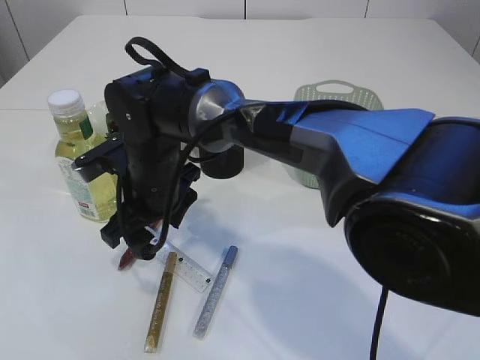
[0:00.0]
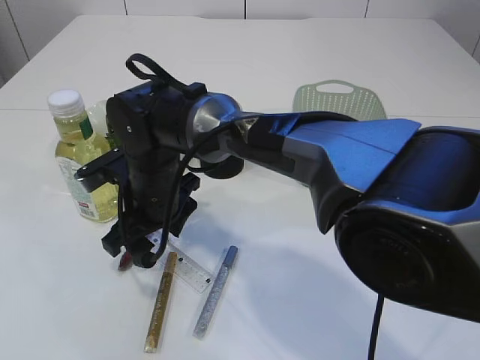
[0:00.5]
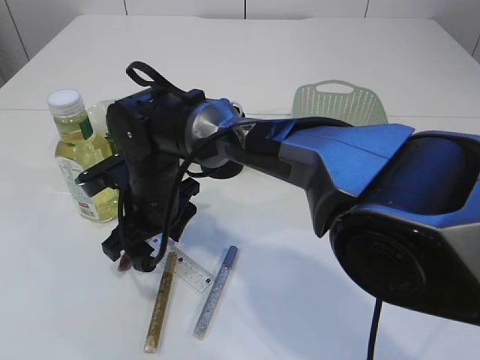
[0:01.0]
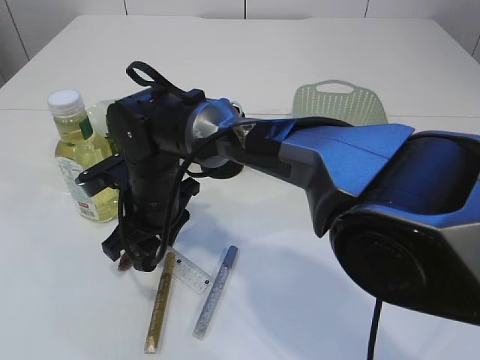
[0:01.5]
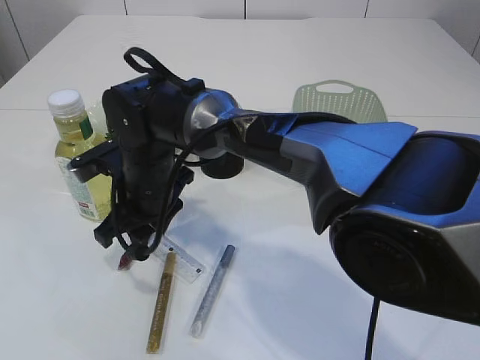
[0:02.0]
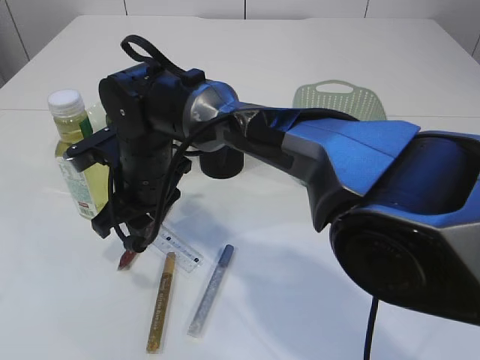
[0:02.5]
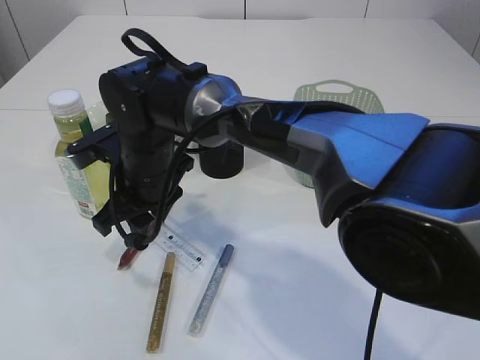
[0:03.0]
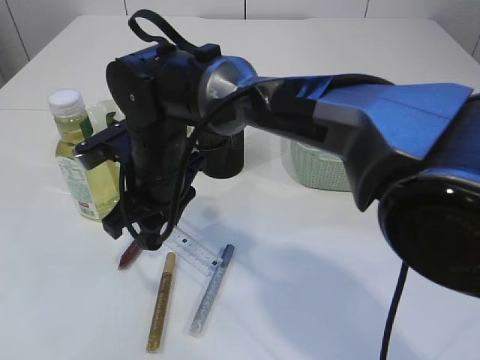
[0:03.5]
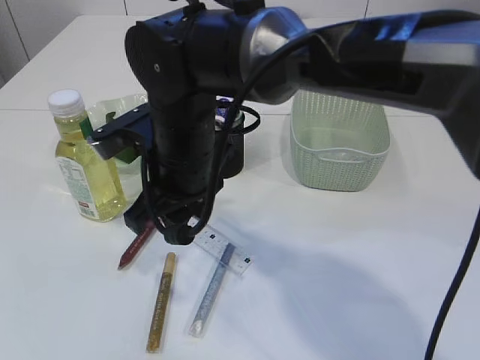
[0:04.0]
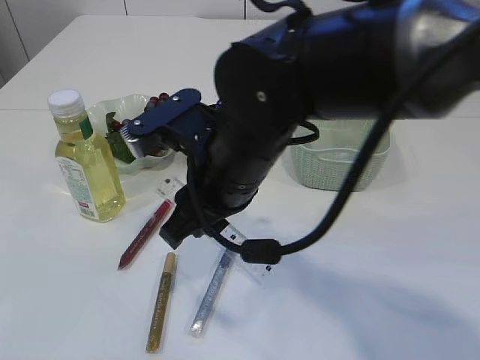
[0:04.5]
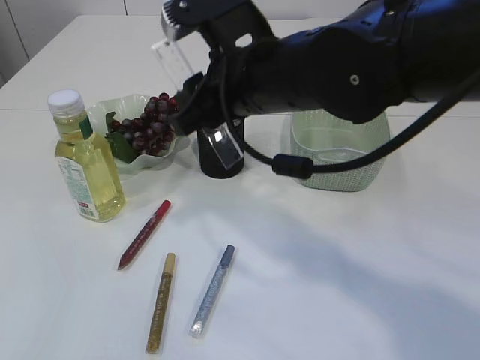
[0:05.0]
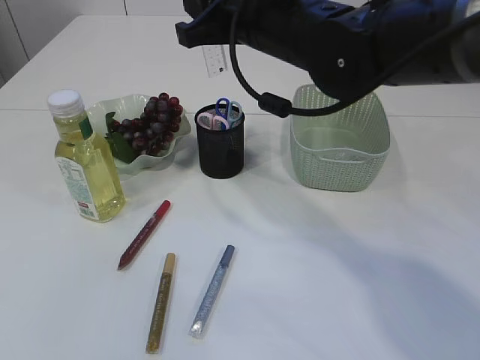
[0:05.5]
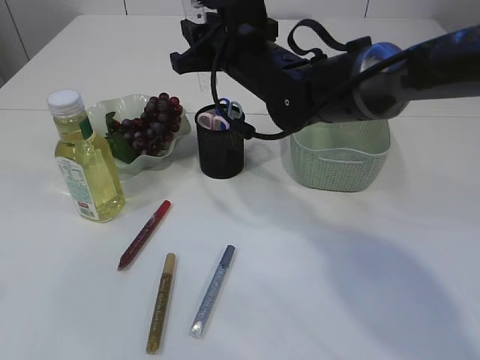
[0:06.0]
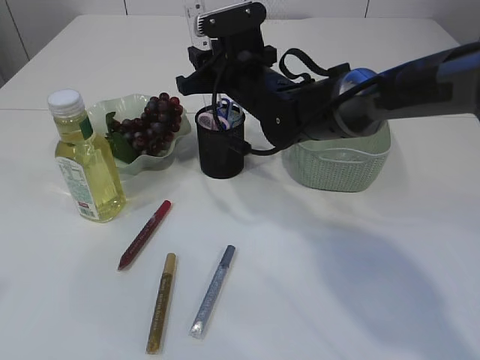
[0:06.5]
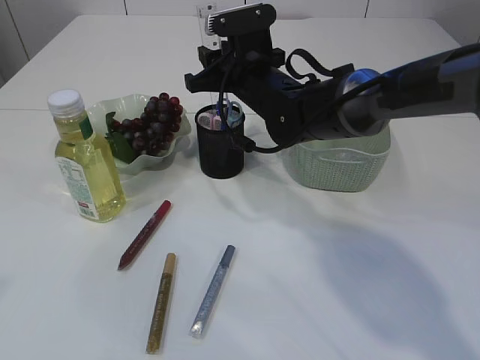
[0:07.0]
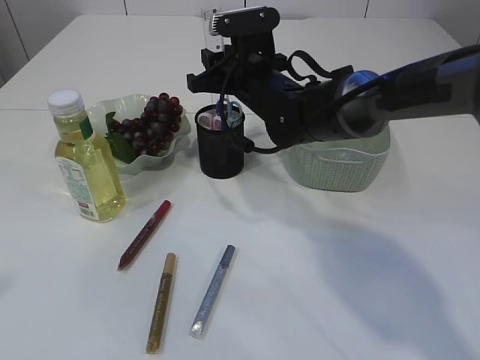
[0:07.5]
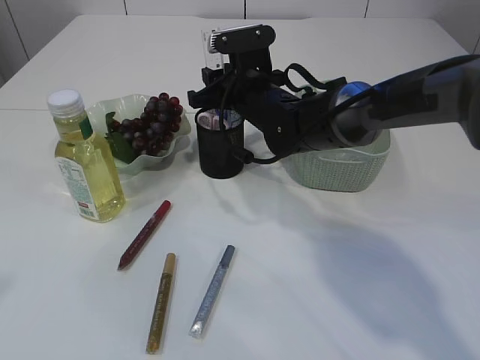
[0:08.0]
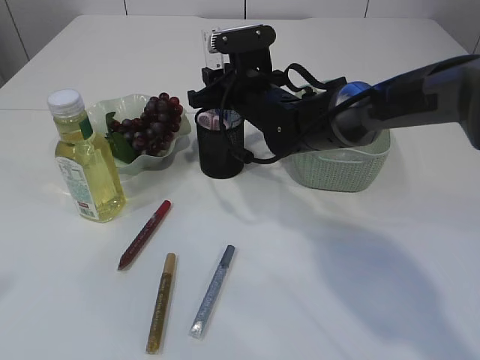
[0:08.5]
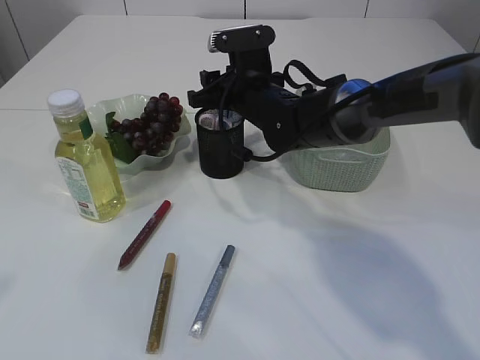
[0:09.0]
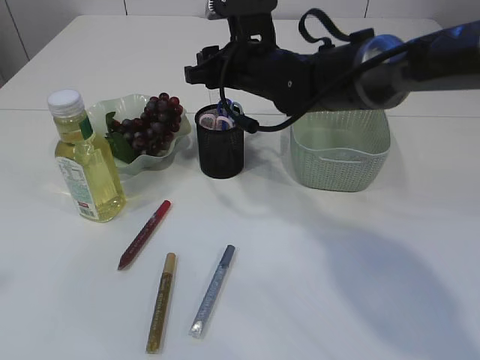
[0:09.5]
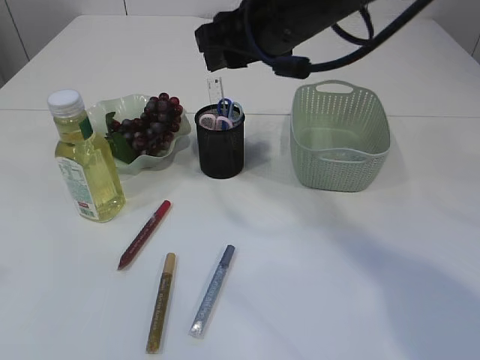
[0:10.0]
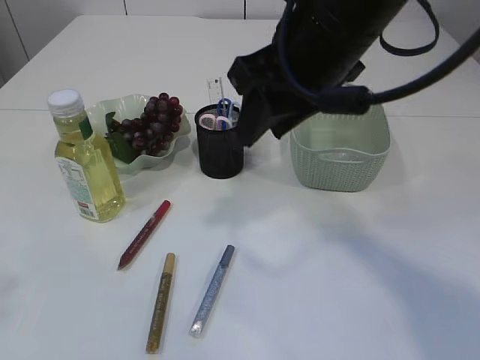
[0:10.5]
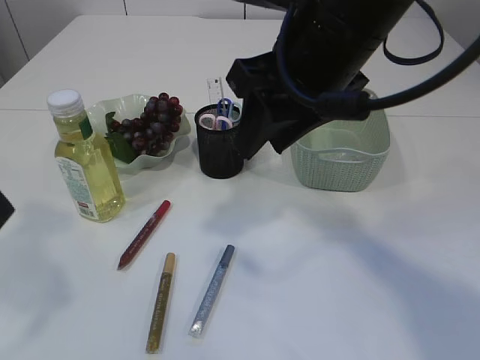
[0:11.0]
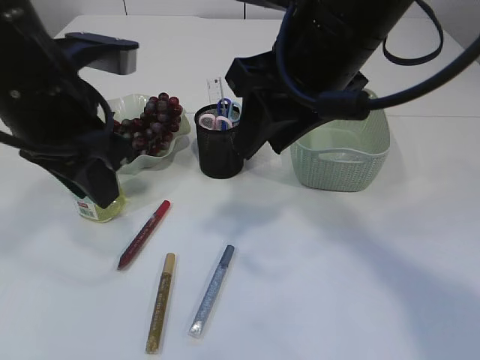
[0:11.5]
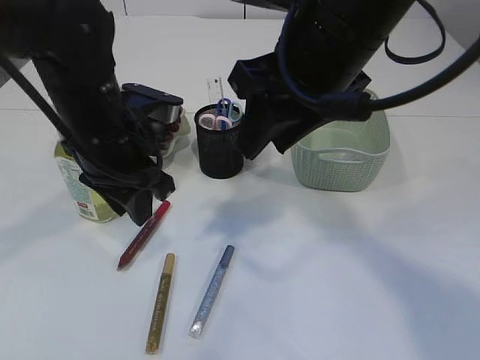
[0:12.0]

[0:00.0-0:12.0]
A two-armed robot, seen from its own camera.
Step, 0:00.0 to 0:03.5: pick up the ruler.
Step, 0:04.0 to 0:09.5: Place the ruler into the pen holder.
0:00.0 to 0:02.0: The right gripper closes its fingers.
0:02.0 to 0:04.0: The right gripper moves upward, approximately 5 cm.
0:04.0 to 0:06.0: The right gripper travels forward and to the right by some 15 cm.
0:06.0 to 0:08.0: The right gripper travels downward by roughly 5 cm.
0:08.0 to 0:10.0: The right gripper goes approximately 15 cm upward and backward.
0:10.0 to 0:12.0: The right gripper travels backward by approximately 5 cm. The left gripper moves forward, downward and to the right, some 35 cm.

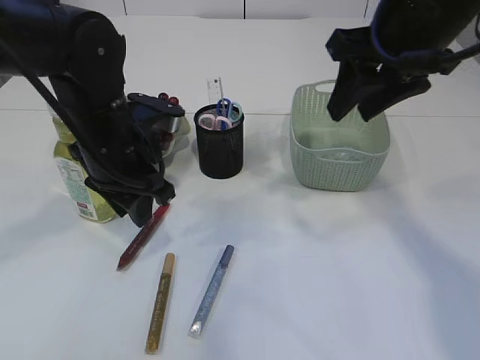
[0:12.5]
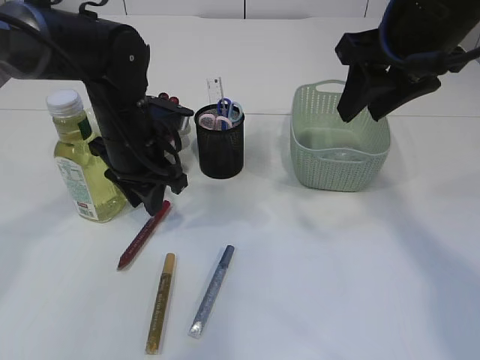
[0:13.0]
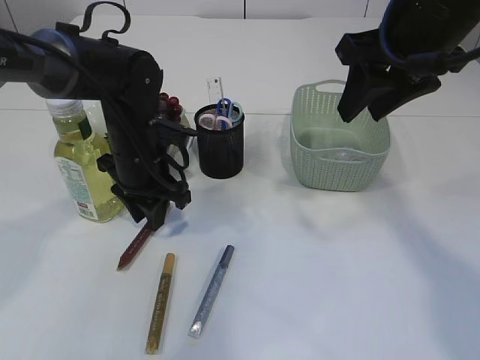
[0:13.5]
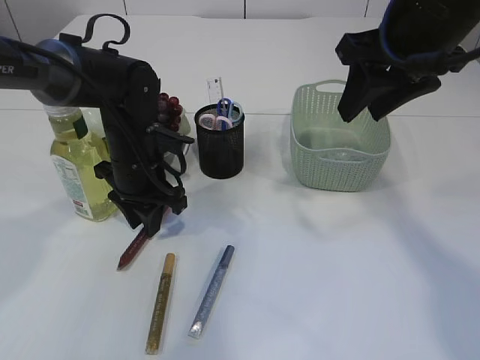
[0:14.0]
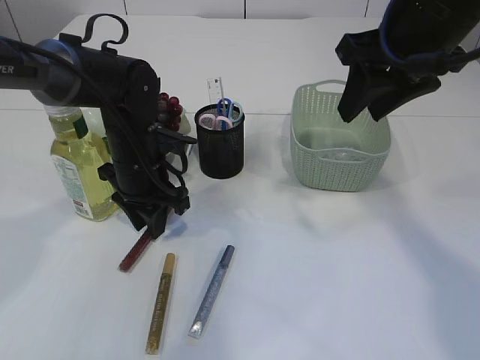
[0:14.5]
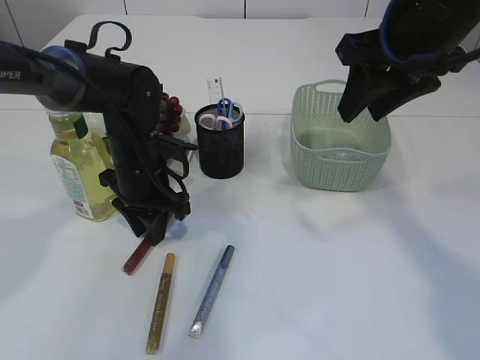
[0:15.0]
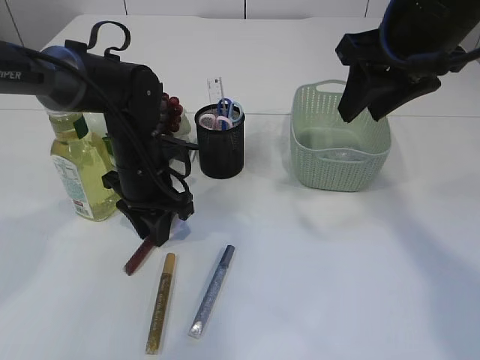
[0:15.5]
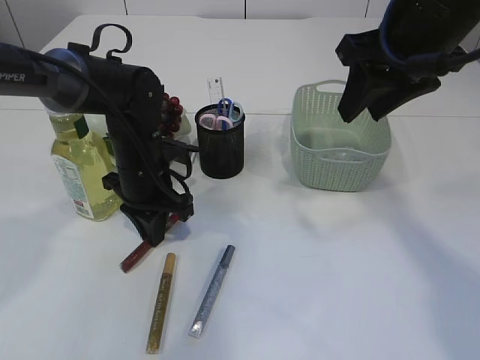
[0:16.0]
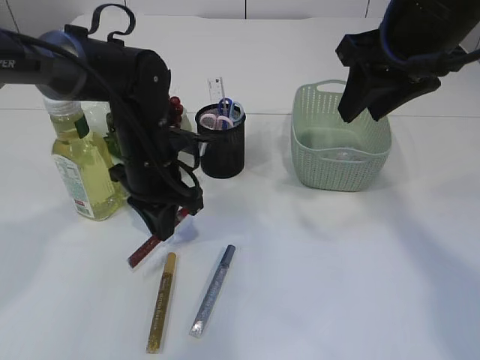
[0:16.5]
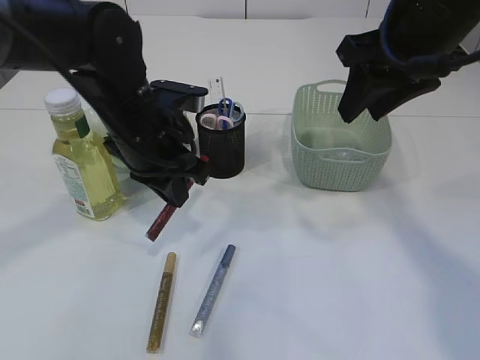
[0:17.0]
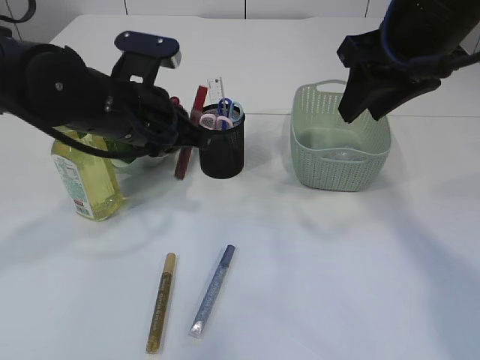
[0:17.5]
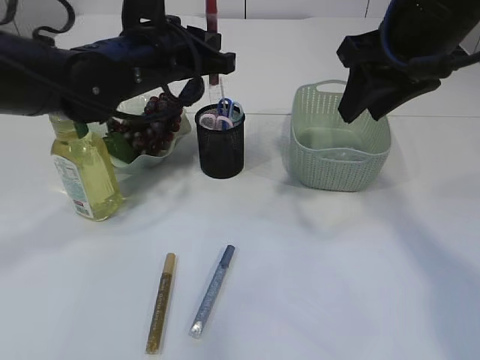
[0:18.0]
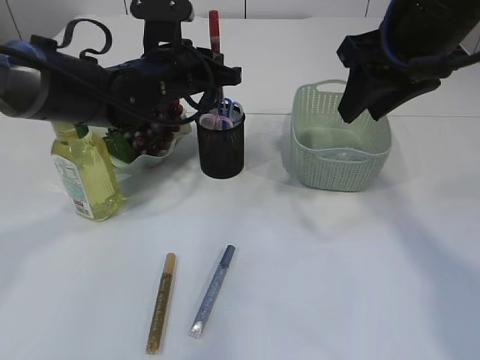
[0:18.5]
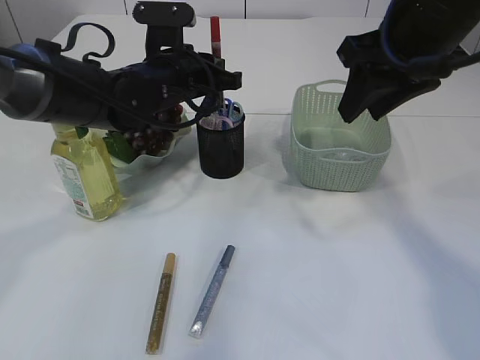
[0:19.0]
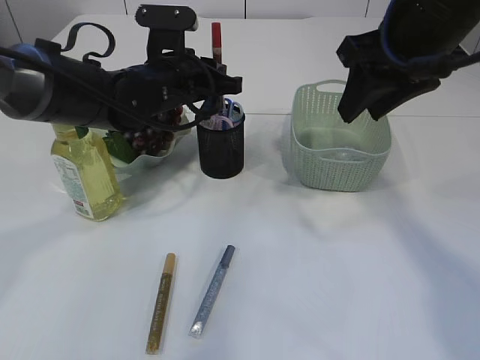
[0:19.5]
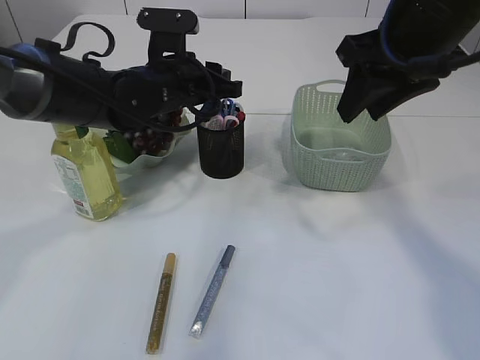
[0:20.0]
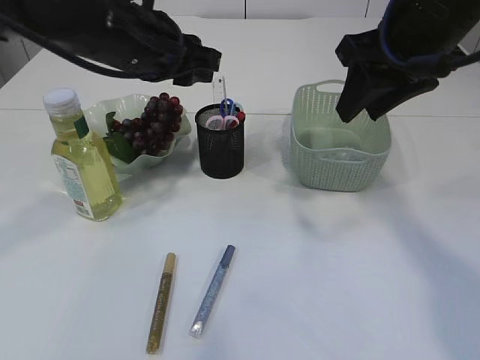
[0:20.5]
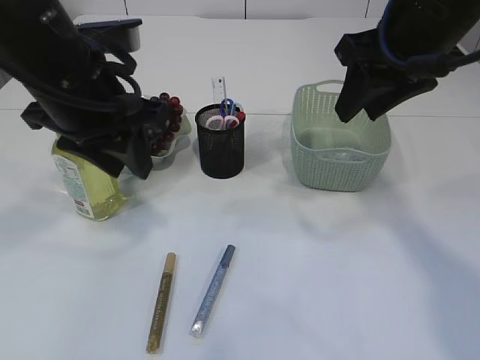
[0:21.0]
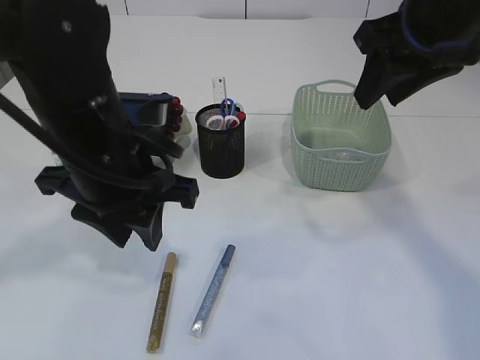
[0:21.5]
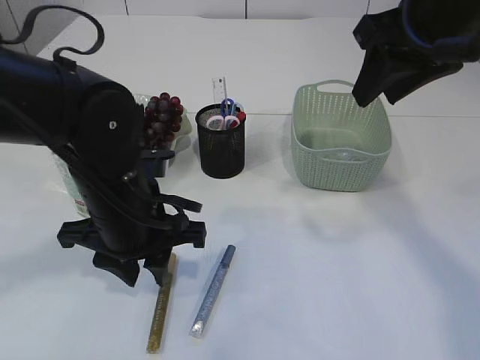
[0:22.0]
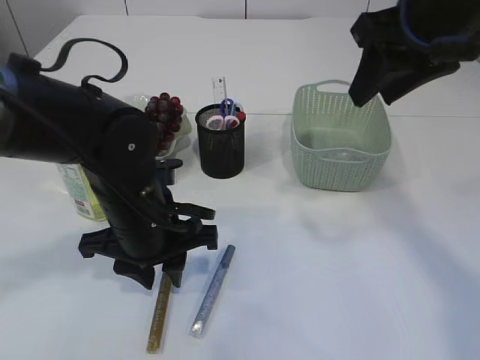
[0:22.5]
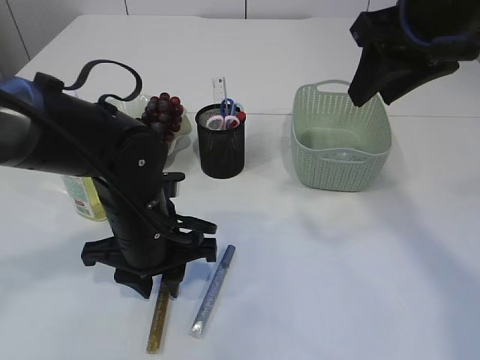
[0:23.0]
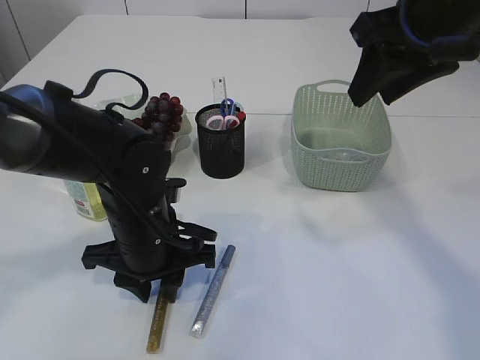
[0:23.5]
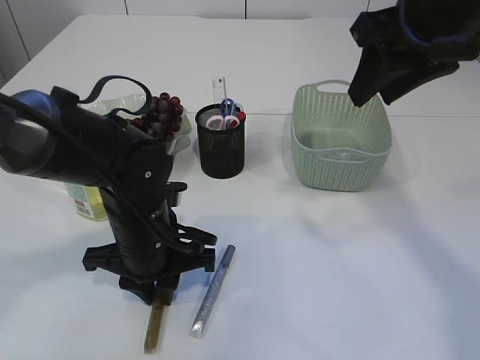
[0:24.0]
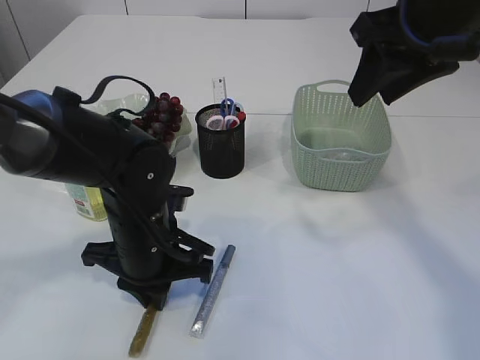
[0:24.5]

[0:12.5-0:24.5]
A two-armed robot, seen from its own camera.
Step, 0:12.5 to 0:17.0: pick up the red glue.
Step, 0:17.5 to 0:20.5: place the red glue into the pen holder.
0:12.5 to 0:14.5: The left gripper heads downward and forward, covering roughly 10 cm.
0:14.5 to 0:16.5: The left gripper closes its fingers.
0:16.5 to 0:18.5: The left gripper travels upward by roughly 5 cm.
0:18.5 to 0:20.5: The left gripper shifts some 10 cm upward and backward, and opens its fingers.
0:20.5 to 0:22.5: The left gripper moves downward and backward, about 15 cm.
0:22.5 to 0:24.5: The left gripper closes.

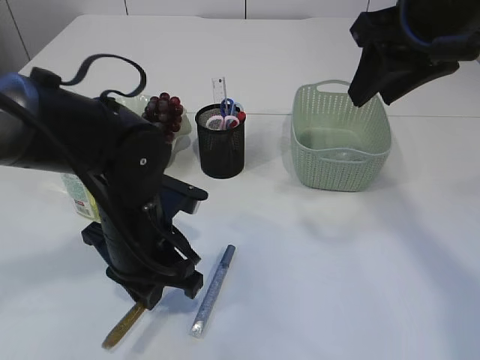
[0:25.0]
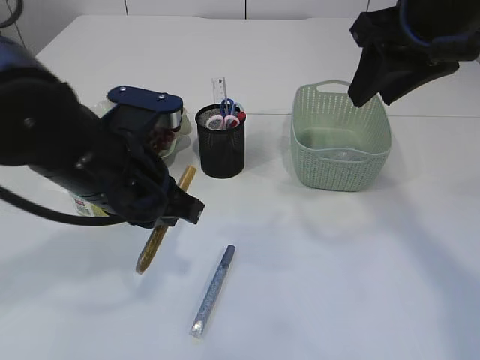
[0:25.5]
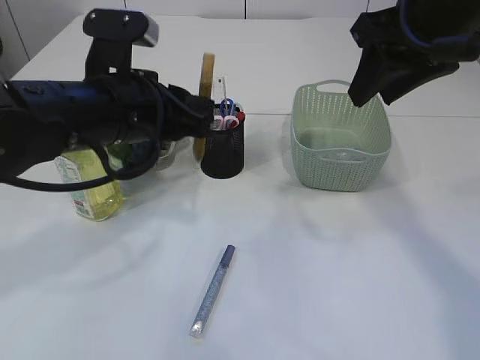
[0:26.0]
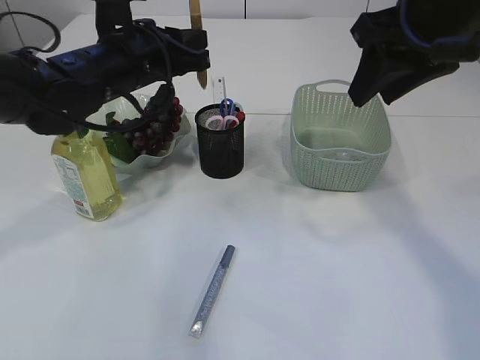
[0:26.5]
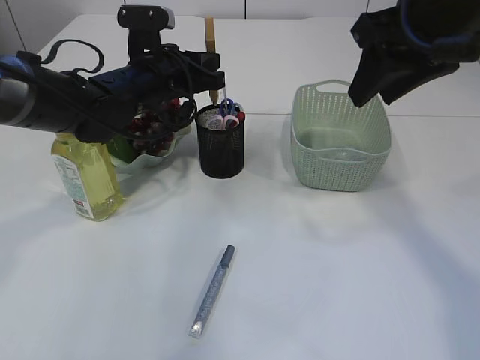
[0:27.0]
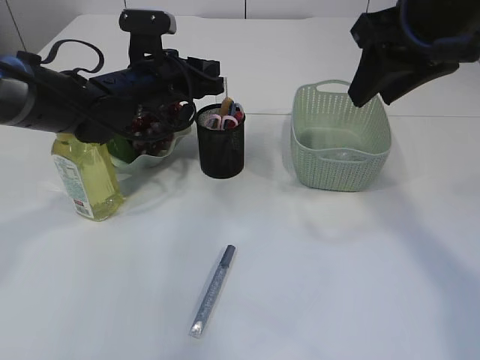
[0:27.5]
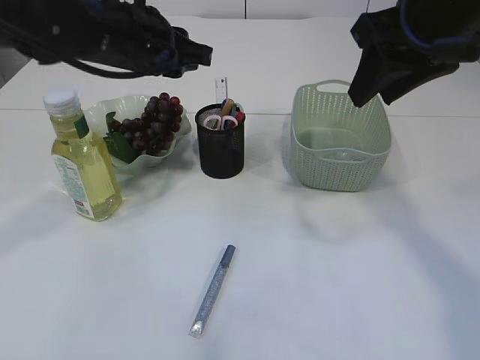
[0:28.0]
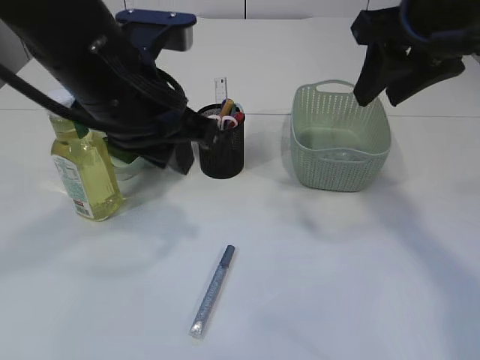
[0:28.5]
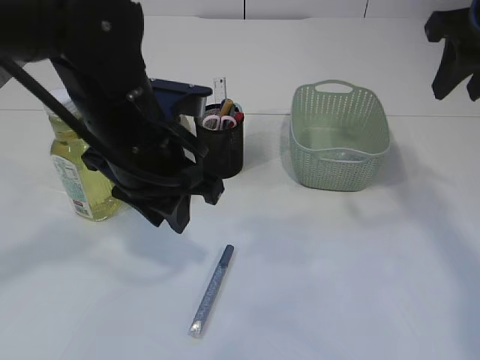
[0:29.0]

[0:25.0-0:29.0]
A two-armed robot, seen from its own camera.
Step, 0:26.0 to 0:28.0: place the yellow glue into the pen holder.
0:25.0 to 0:27.0: The left gripper shifts approximately 15 cm forward.
0:27.0 to 0:29.0: The right gripper heads to the right, covering about 5 cm. The left gripper heads backward, covering about 15 cm.
